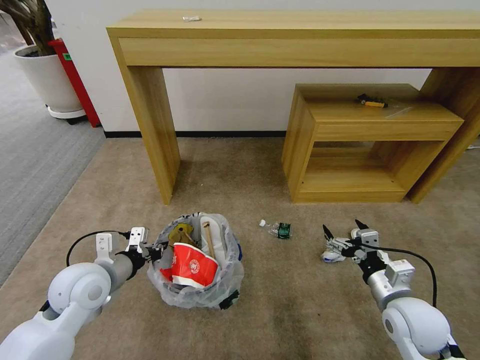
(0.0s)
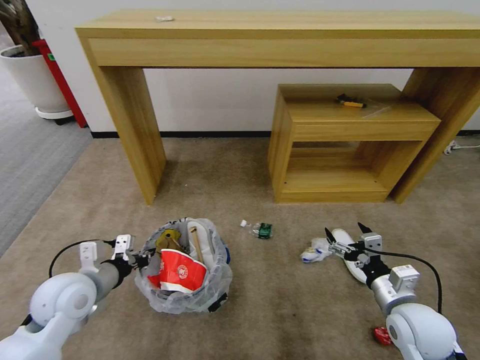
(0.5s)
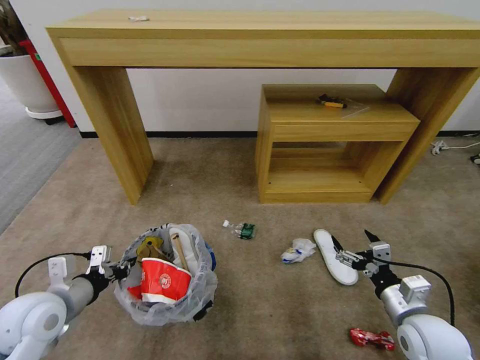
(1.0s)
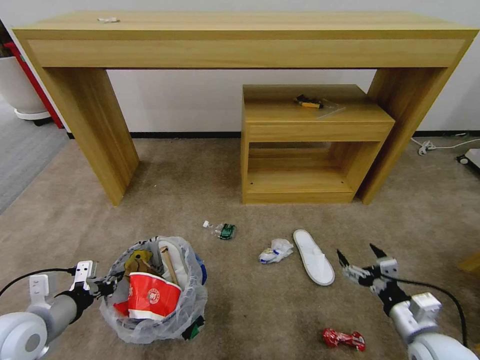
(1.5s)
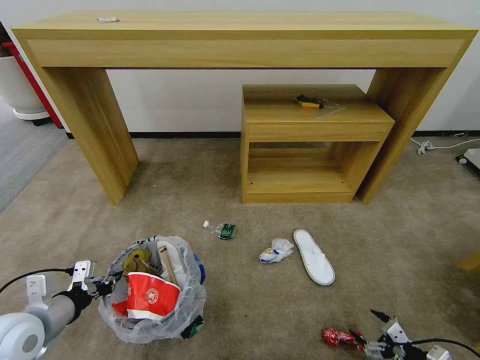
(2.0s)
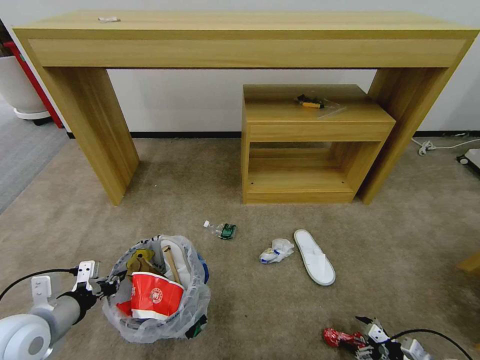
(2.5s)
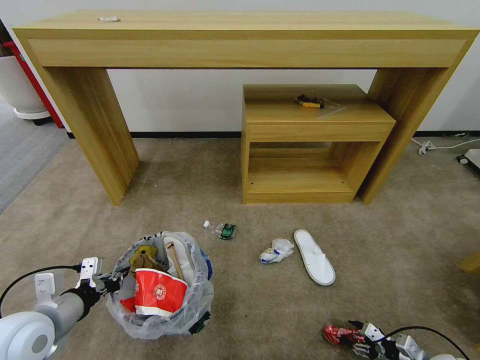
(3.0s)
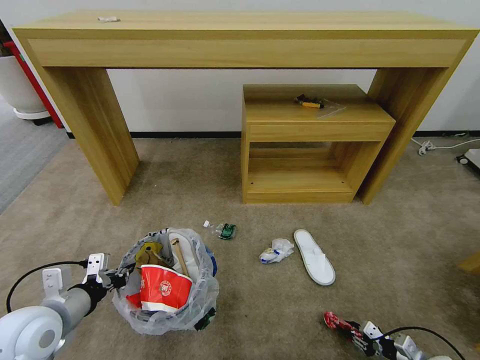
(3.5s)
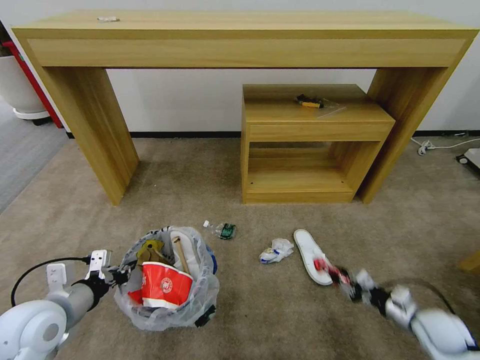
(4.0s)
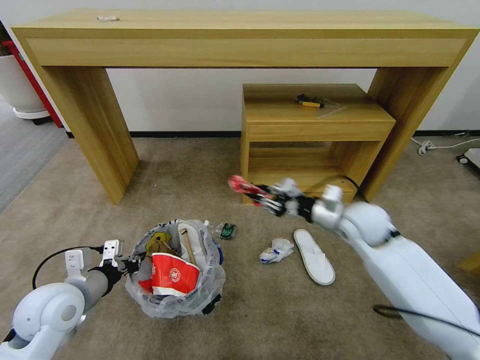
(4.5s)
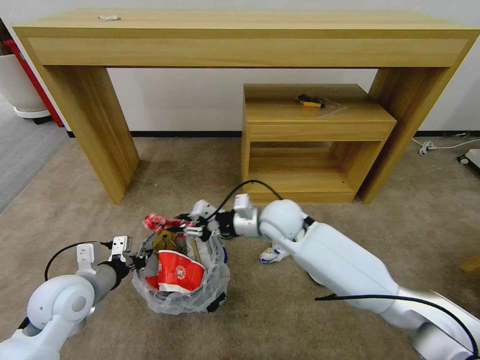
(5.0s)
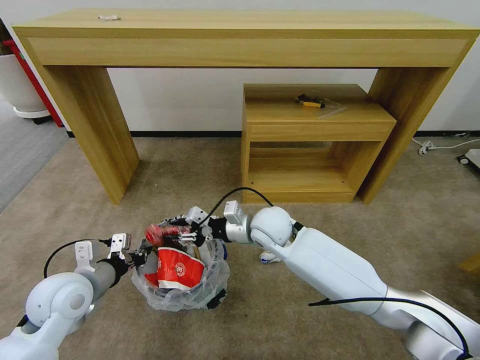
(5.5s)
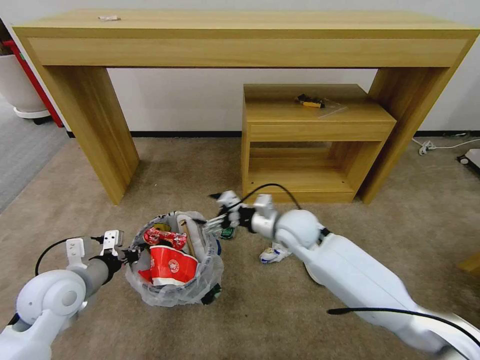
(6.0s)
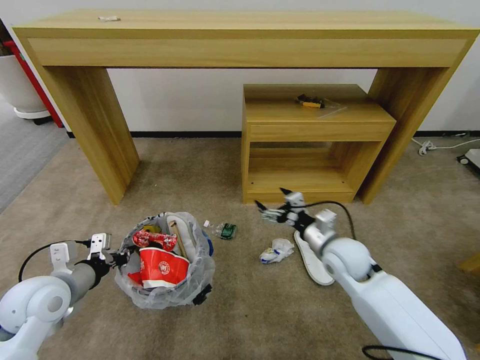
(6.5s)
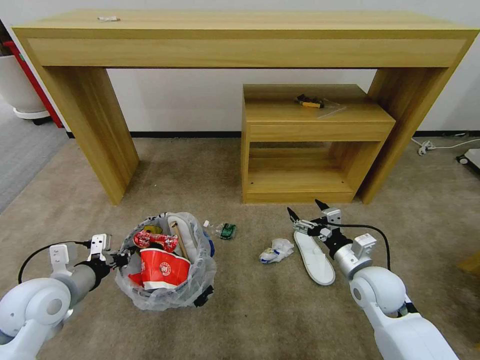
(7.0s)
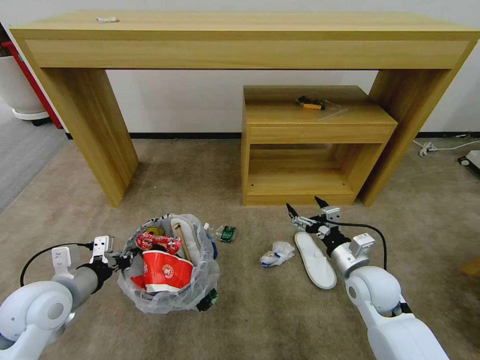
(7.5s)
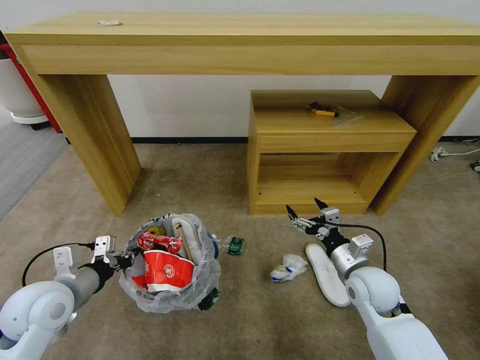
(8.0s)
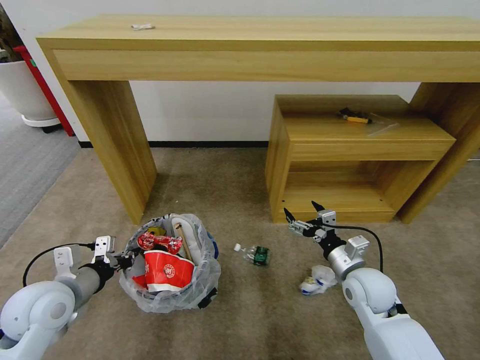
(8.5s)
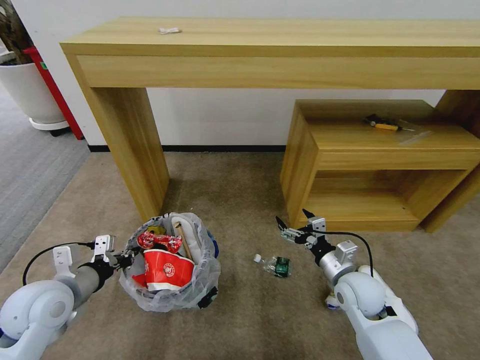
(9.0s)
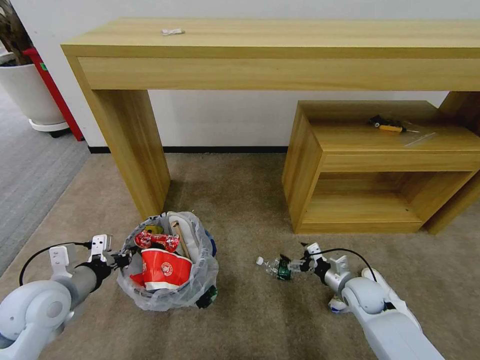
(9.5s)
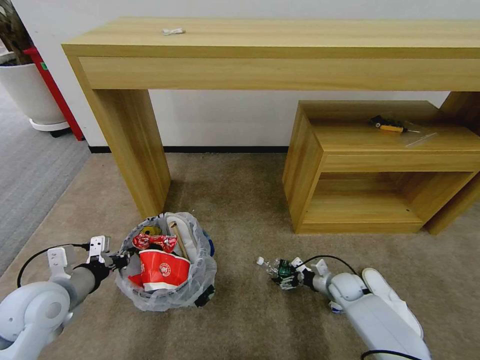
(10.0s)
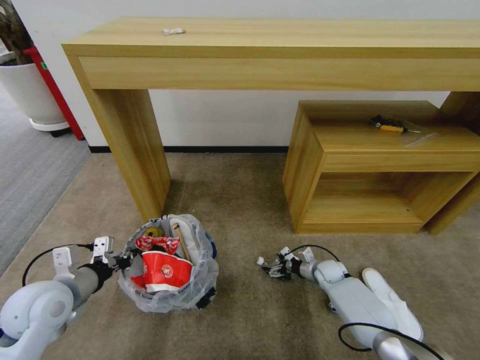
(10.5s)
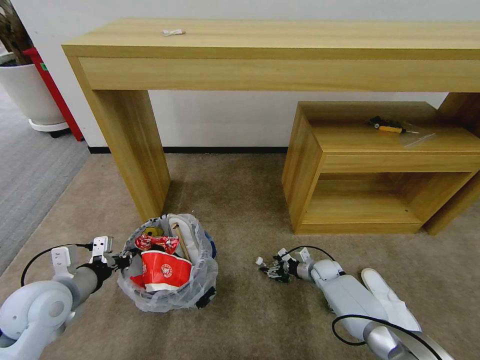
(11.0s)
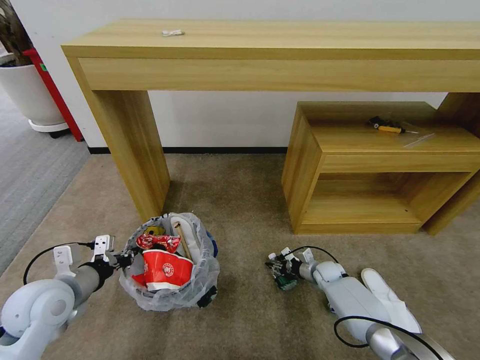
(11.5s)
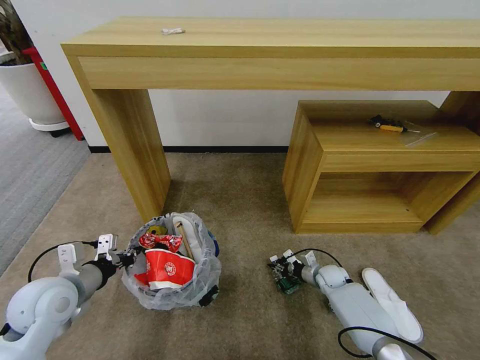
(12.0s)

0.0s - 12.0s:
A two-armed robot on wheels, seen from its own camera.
Task of the whole recording: Pick up the trash bin and place the garbage on the floor into it.
0.0s - 2.0s: The right gripper goes some 25 cm to the right, downward and backward; the left gripper goes roughly 10 cm backward and to the left.
2.0s - 4.0s: The right gripper moves forward and upward, roughly 15 cm, and closes up.
4.0s - 6.0s: The right gripper is displaced to the left, forward and upward by roughly 40 cm, and opens. The left gripper shifts about 5 cm forward.
6.0s - 8.0s: The right gripper goes about 20 cm to the right, backward and downward.
8.0s - 10.0s: The right gripper goes approximately 20 cm downward.
10.0s - 12.0s: The right gripper ends up approximately 5 cm from where it was, and closes up.

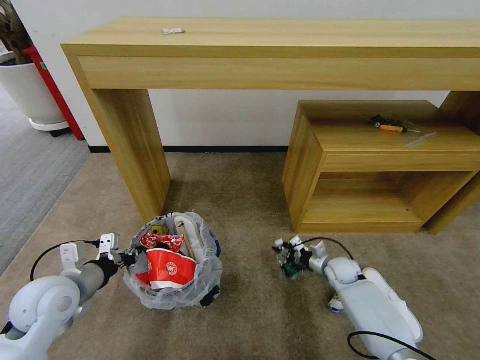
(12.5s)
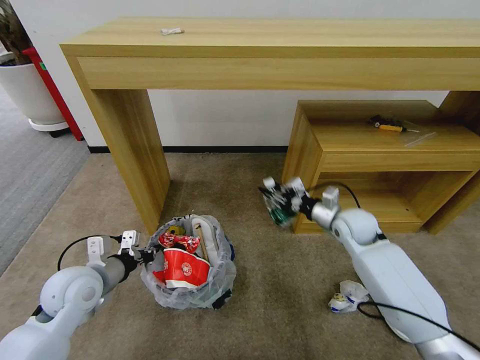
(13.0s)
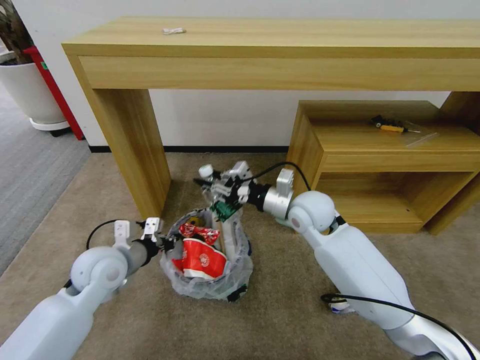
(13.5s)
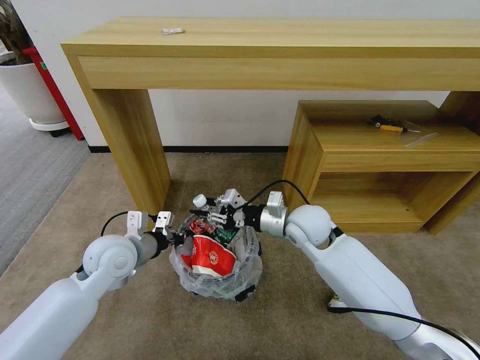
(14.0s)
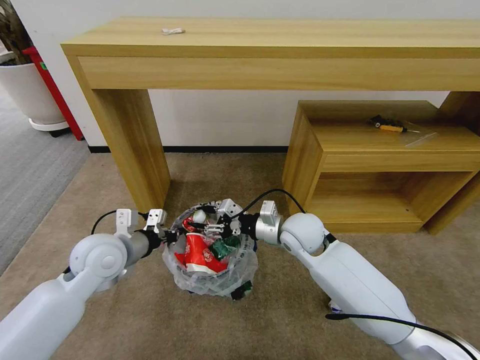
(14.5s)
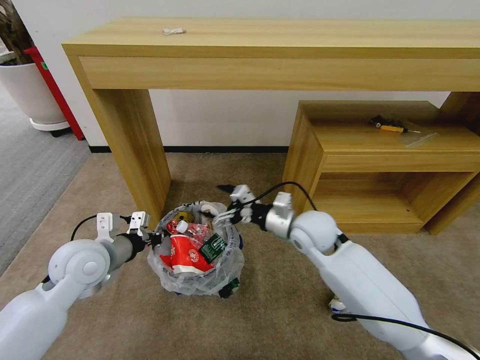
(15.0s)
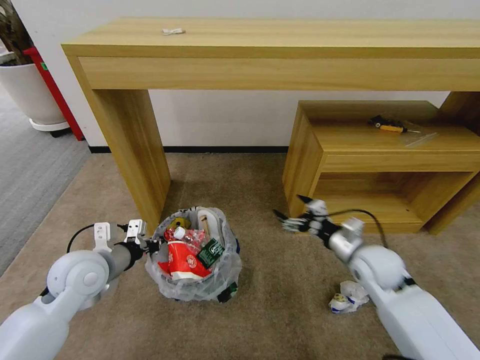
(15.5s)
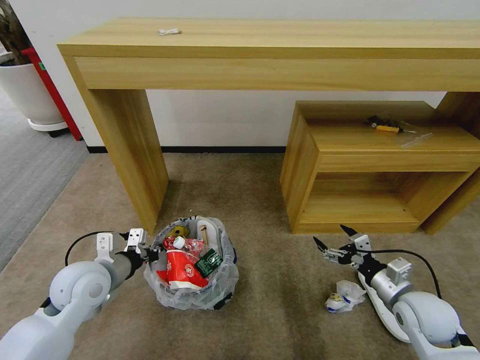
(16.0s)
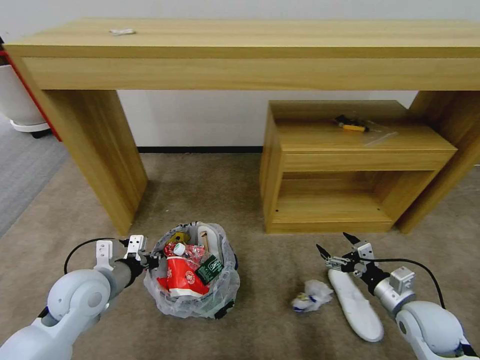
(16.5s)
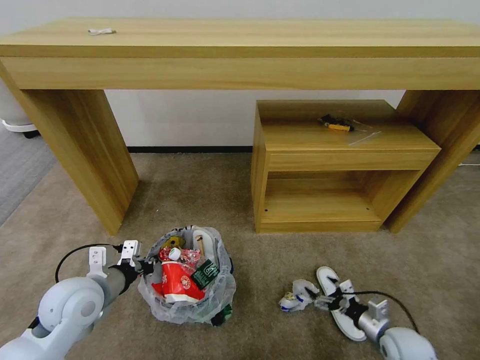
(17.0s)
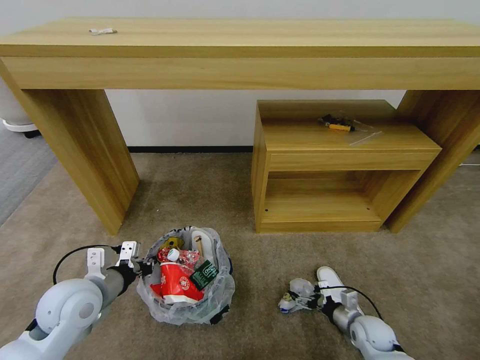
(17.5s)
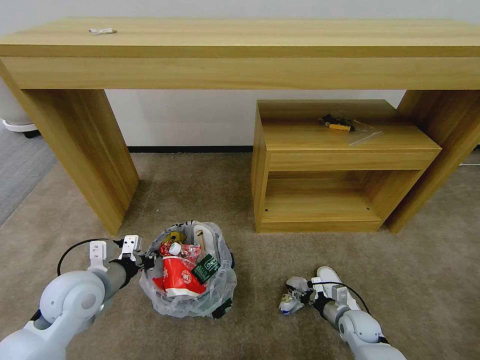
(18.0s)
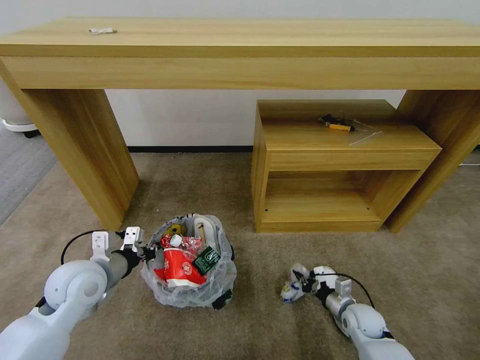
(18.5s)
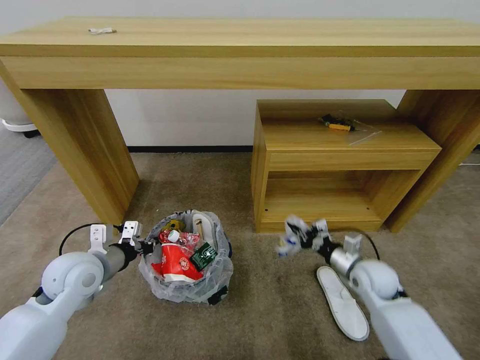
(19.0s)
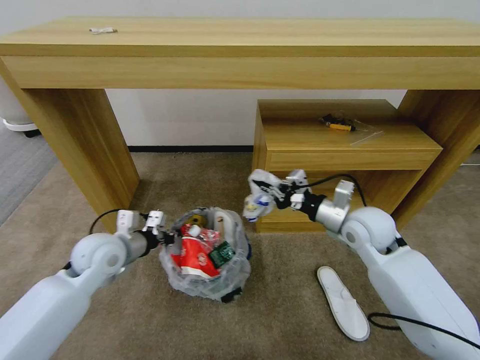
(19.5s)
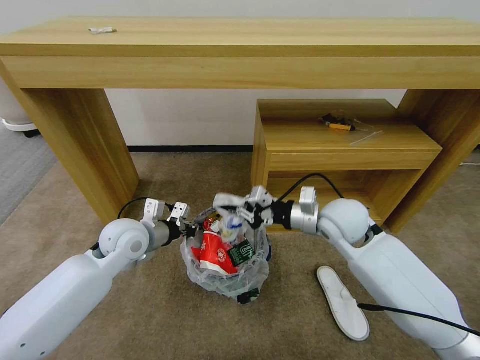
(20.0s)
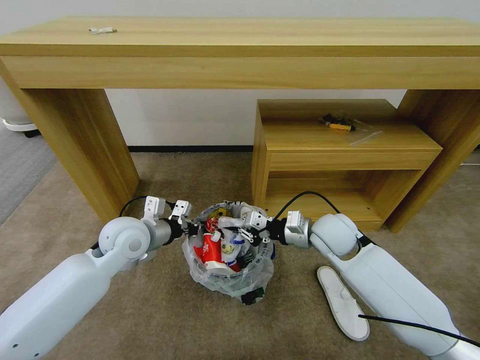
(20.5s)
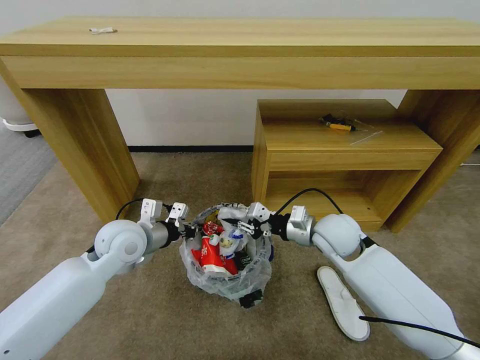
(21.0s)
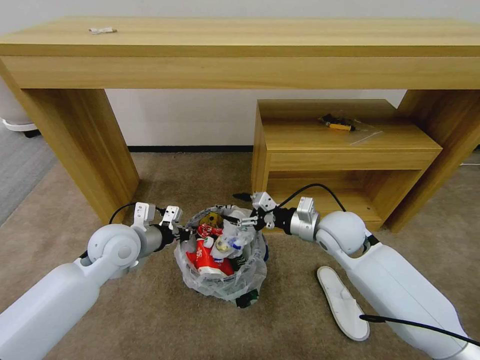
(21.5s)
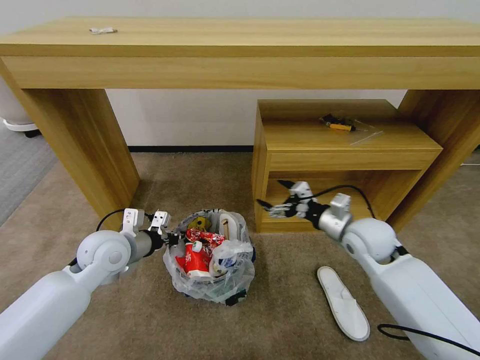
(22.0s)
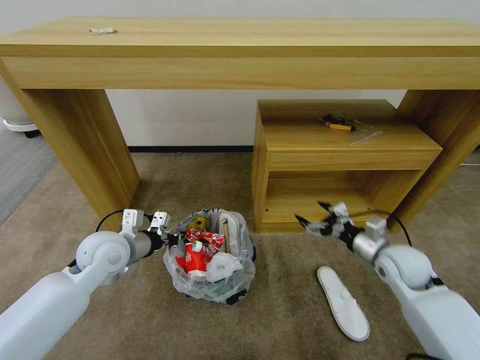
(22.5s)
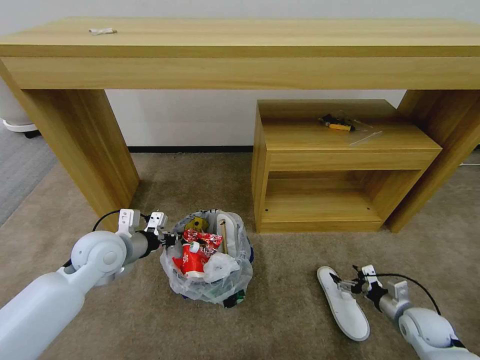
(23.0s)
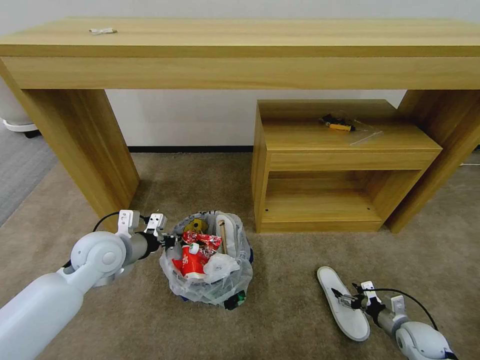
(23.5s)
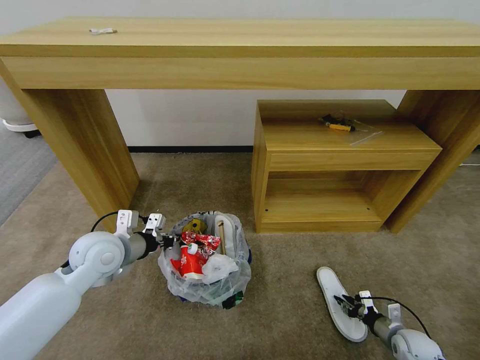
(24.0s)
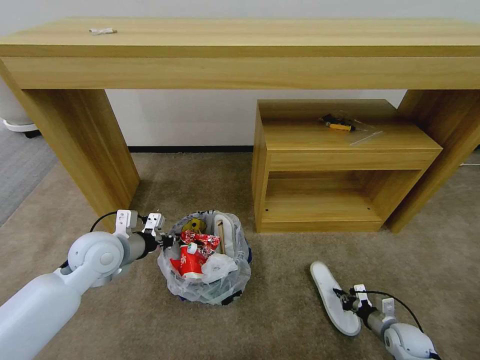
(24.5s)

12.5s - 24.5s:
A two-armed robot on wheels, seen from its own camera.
Task of the whole recording: Pick up the trash bin and place the garbage on the floor into it.
12.5s - 14.5s: The right gripper is displaced upward and to the left by some 30 cm, while the left gripper shifts about 10 cm to the right and forward.
14.5s - 16.5s: The left gripper heads backward, covering approximately 5 cm. Meanwhile the right gripper travels to the right and backward by roughly 30 cm, and opens.
16.5s - 18.5s: The right gripper goes about 15 cm downward, and closes up.
18.5s - 20.5s: The right gripper moves upward, to the left and forward, some 30 cm. The left gripper travels forward and to the right by some 10 cm.
20.5s - 22.5s: The right gripper heads to the right, covering about 15 cm, and opens; the left gripper changes place by about 5 cm.
22.5s - 24.5s: The right gripper shifts about 25 cm downward and backward, and closes its fingers.

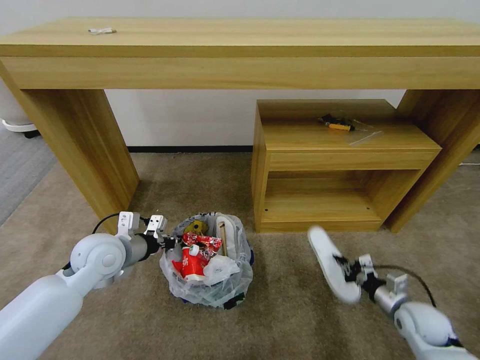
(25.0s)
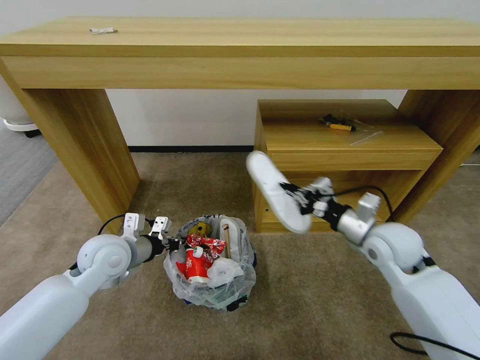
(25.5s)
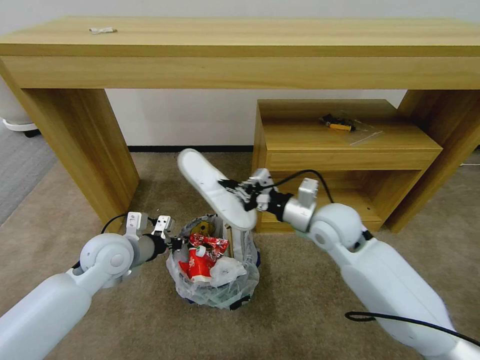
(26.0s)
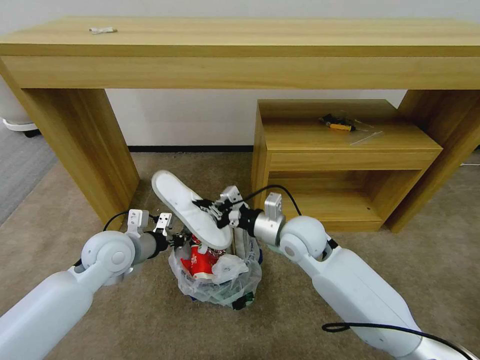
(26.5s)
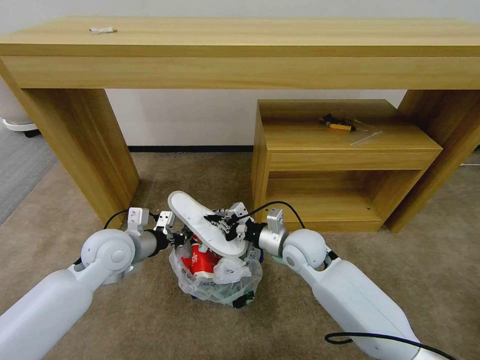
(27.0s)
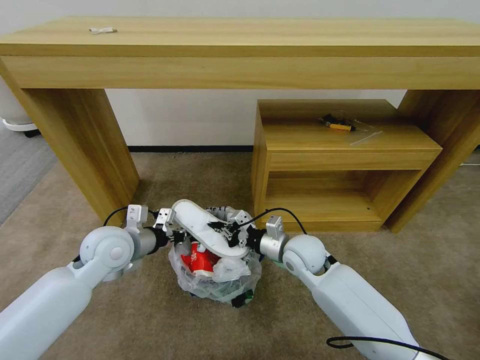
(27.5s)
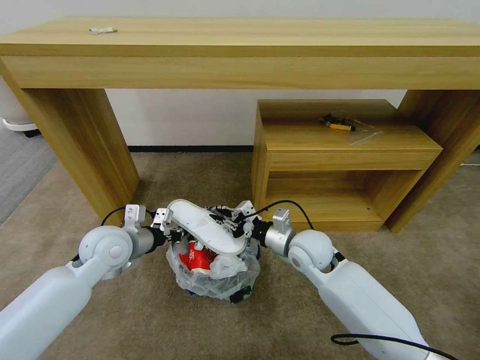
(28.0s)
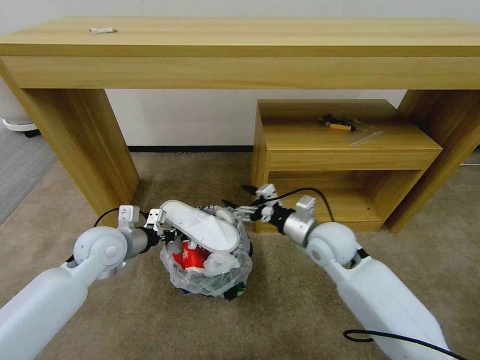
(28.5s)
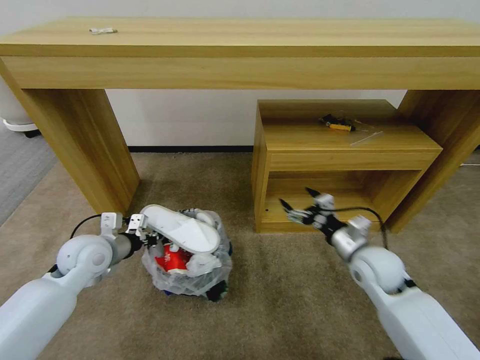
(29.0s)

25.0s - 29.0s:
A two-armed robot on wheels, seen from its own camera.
Task of the whole recording: Pick up the trash bin and place the garbage on the floor into it.
25.0s - 27.0s: The right gripper moves to the left, upward and forward, roughly 35 cm.
27.0s - 29.0s: The right gripper heads to the right, covering approximately 15 cm, and opens, while the left gripper is displaced to the left by some 5 cm.
